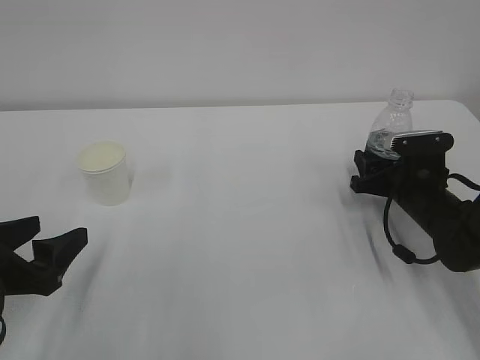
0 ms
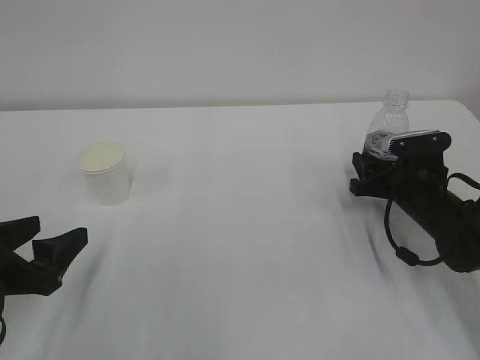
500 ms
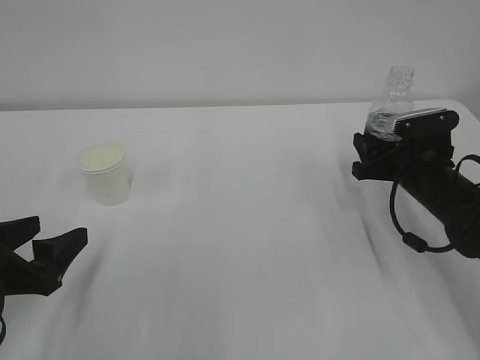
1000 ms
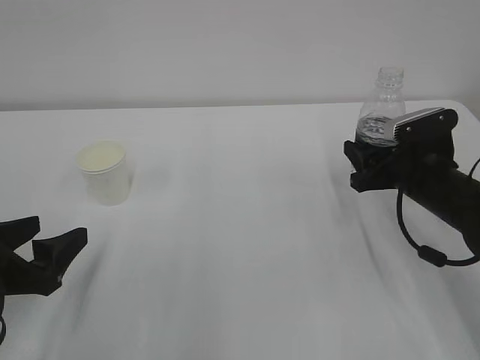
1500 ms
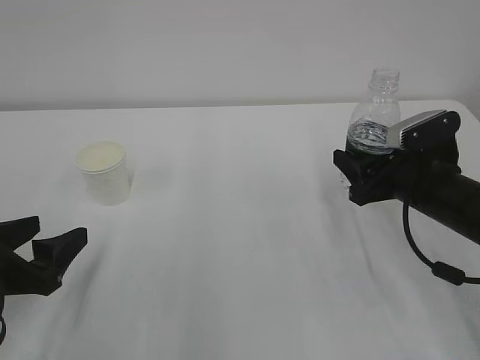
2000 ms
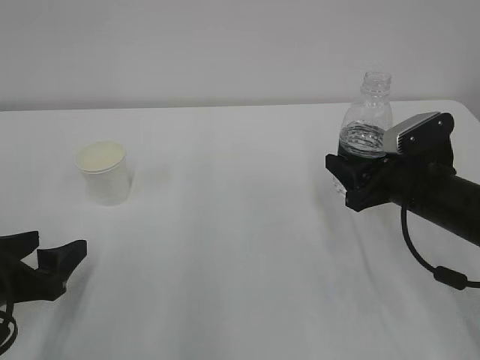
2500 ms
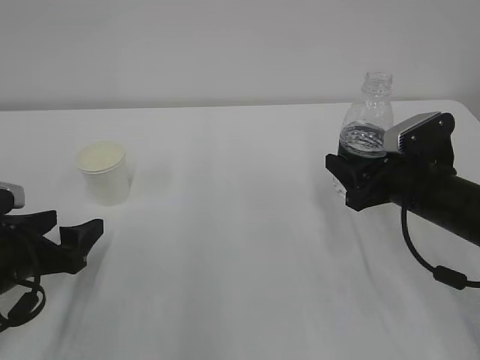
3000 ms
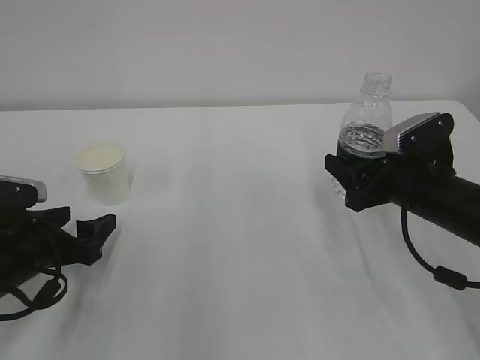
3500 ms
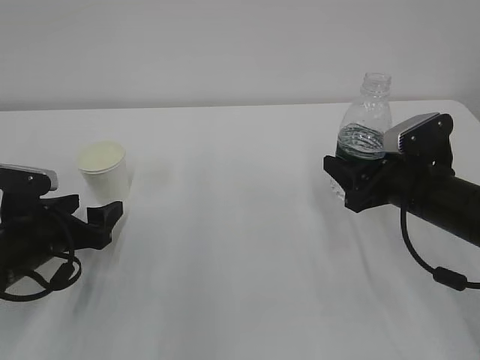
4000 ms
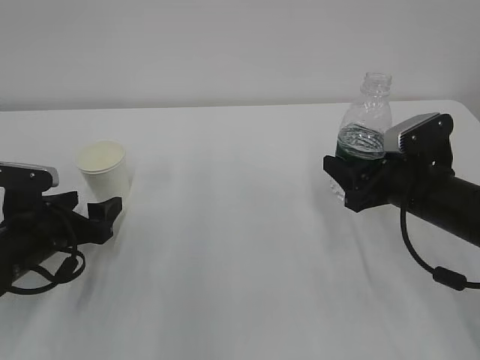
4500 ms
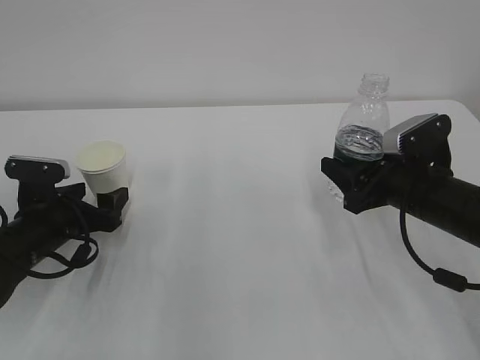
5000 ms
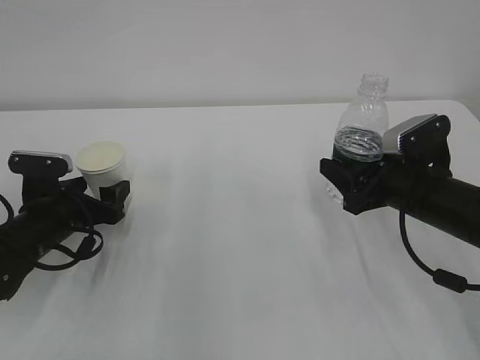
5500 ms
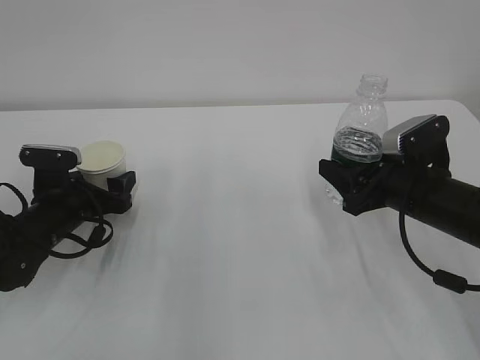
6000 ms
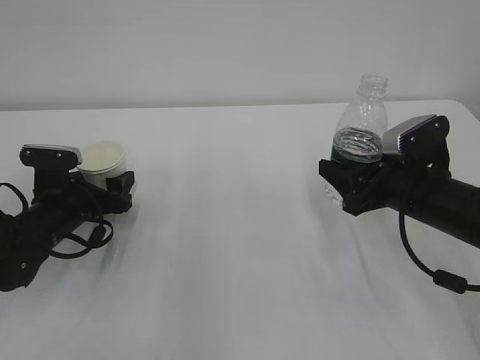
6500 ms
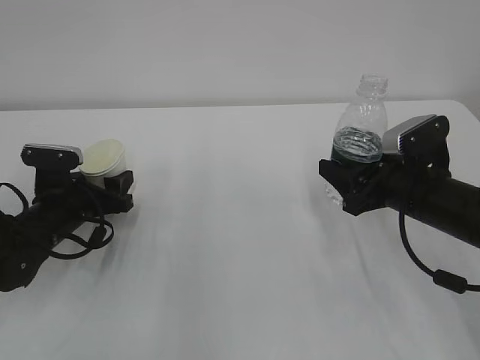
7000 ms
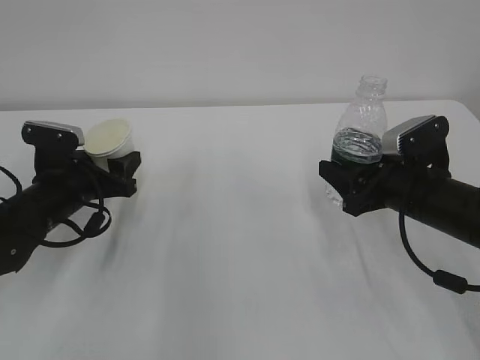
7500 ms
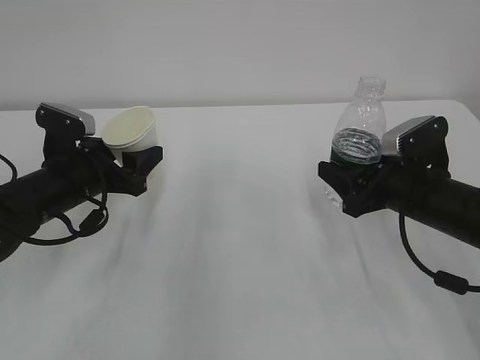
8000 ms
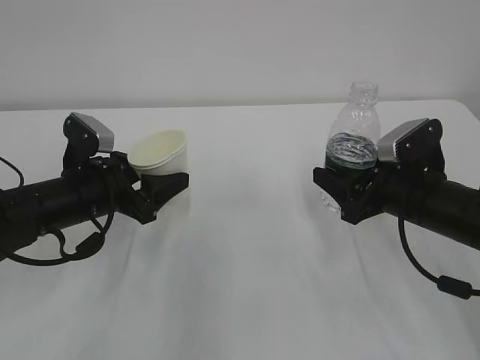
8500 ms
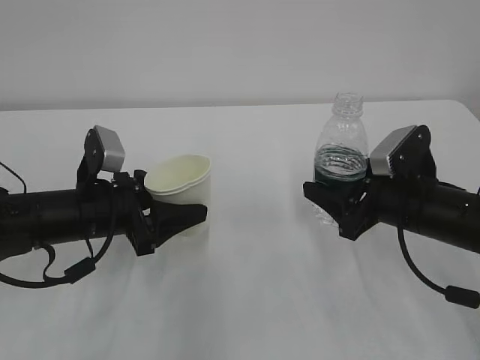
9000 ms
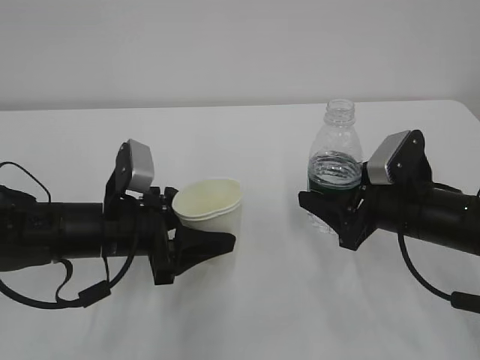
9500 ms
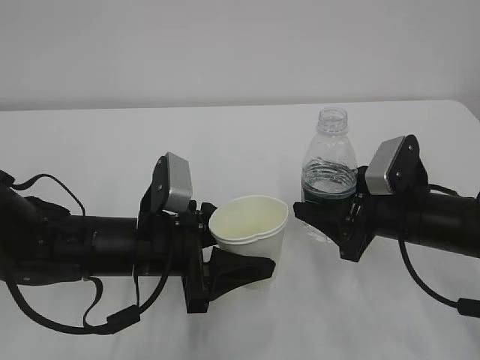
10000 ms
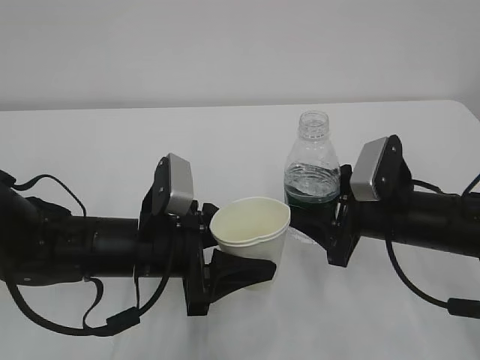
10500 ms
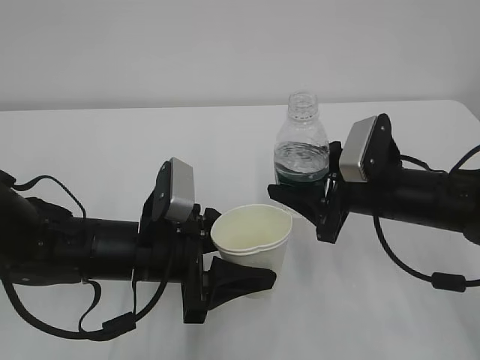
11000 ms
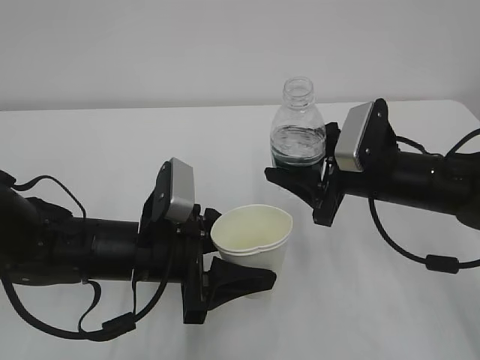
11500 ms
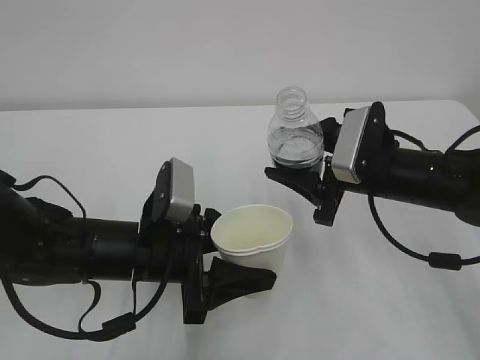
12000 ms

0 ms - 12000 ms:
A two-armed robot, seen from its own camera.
0 ms - 2000 ms: The right gripper shifts about 10 cm upward and backward.
2000 ms - 4000 ms: The left gripper shifts some 10 cm forward.
4000 ms - 6000 ms: The left gripper is displaced forward by approximately 5 cm.
6000 ms - 8000 ms: The left gripper goes roughly 5 cm upward, and closes up.
8000 ms - 10000 ms: The left gripper shifts roughly 15 cm to the right and backward.
10000 ms - 12000 ms: The right gripper changes place by approximately 5 cm.

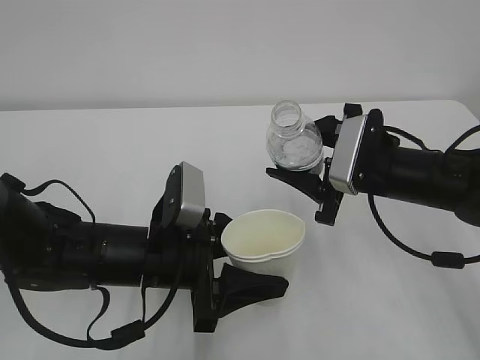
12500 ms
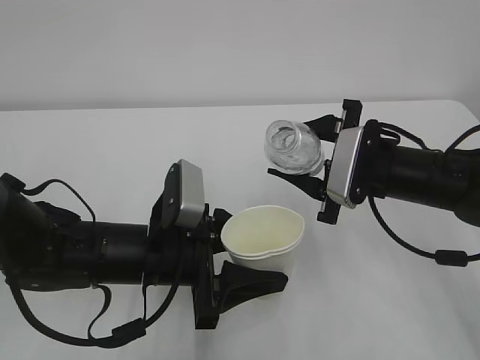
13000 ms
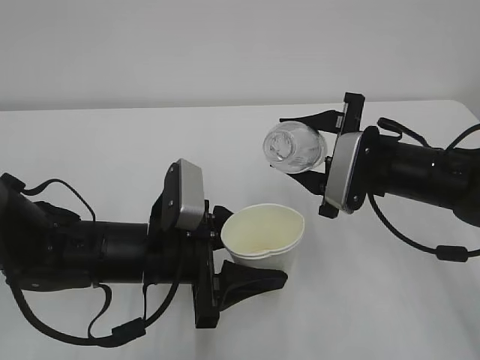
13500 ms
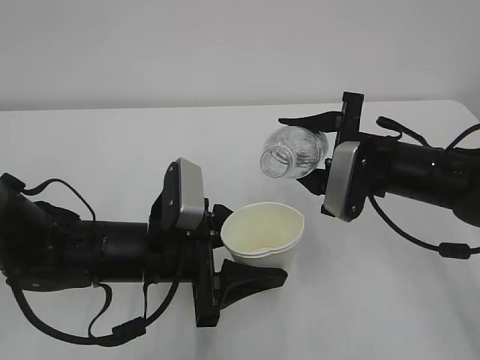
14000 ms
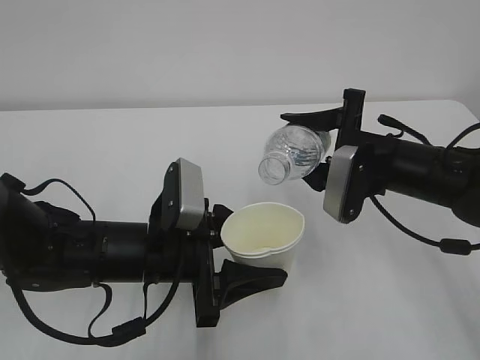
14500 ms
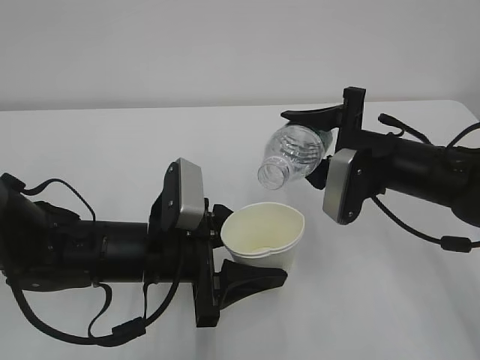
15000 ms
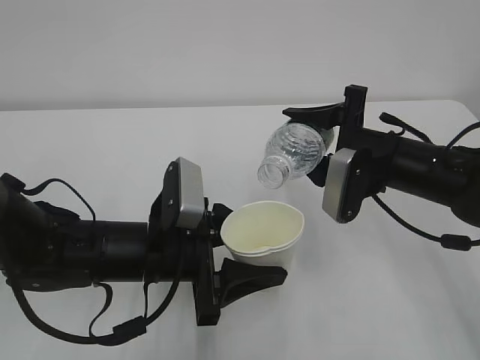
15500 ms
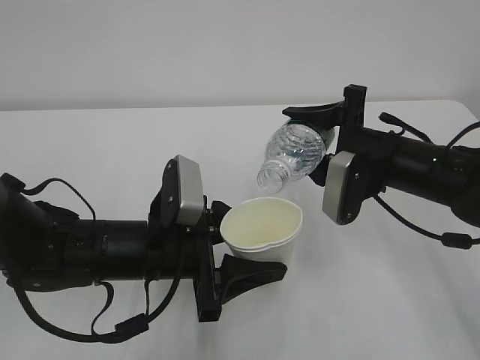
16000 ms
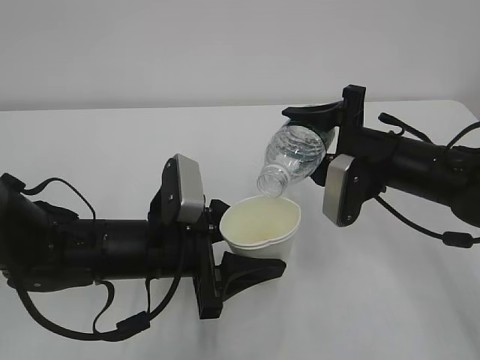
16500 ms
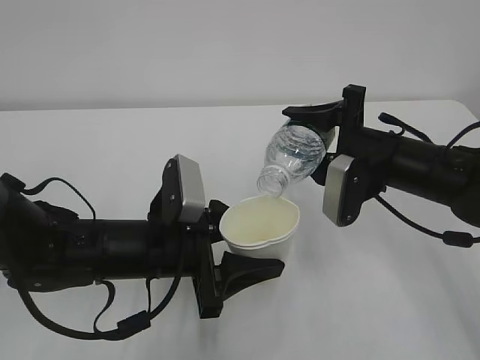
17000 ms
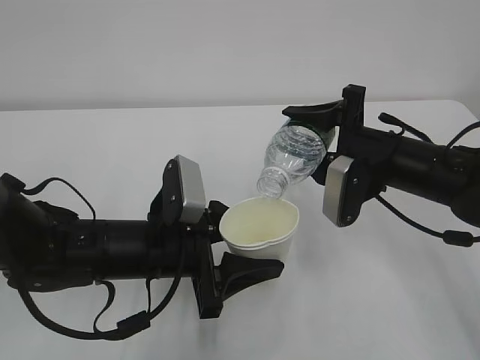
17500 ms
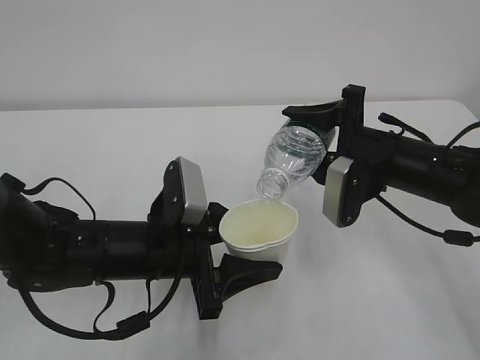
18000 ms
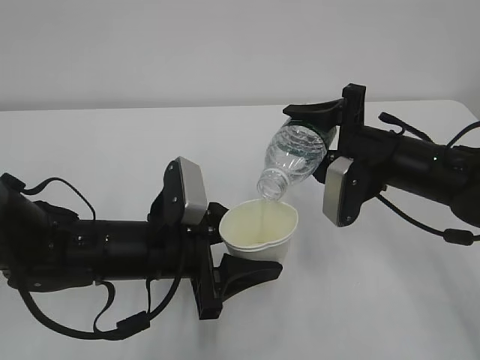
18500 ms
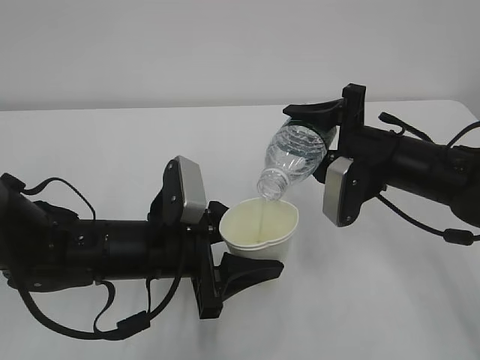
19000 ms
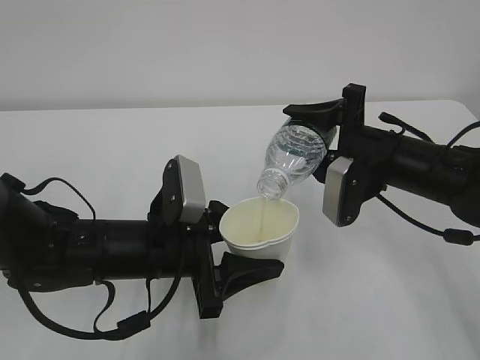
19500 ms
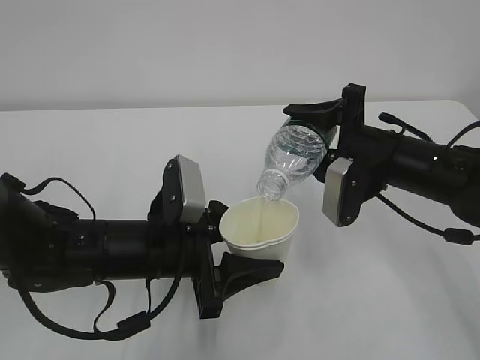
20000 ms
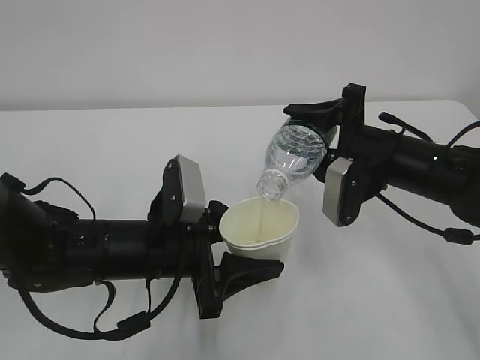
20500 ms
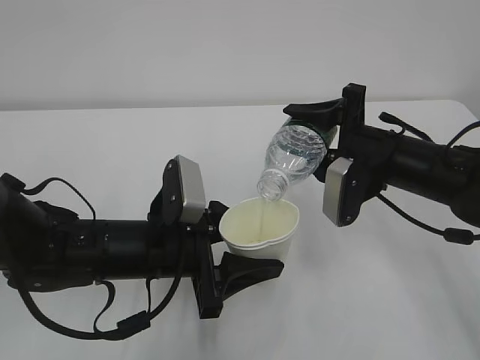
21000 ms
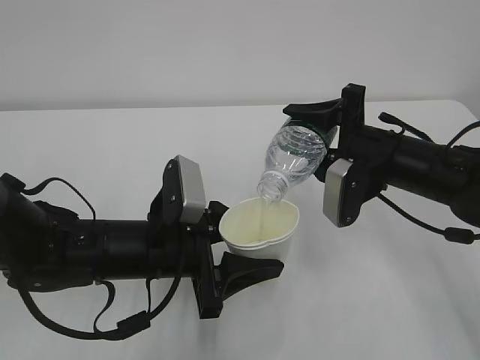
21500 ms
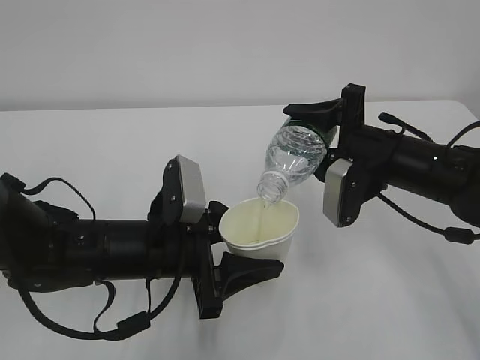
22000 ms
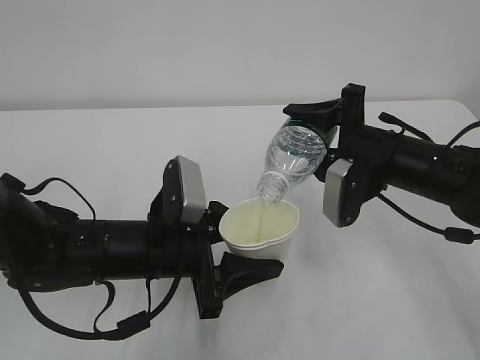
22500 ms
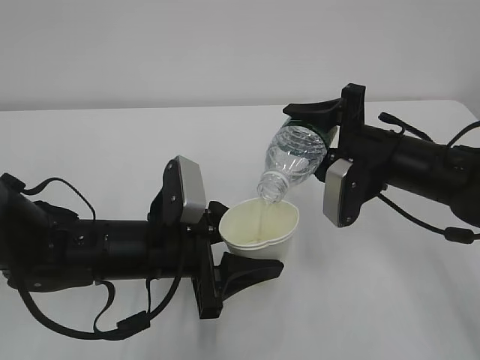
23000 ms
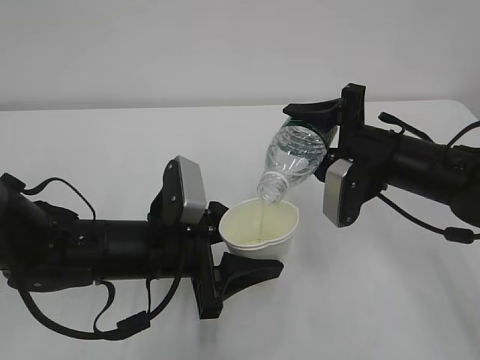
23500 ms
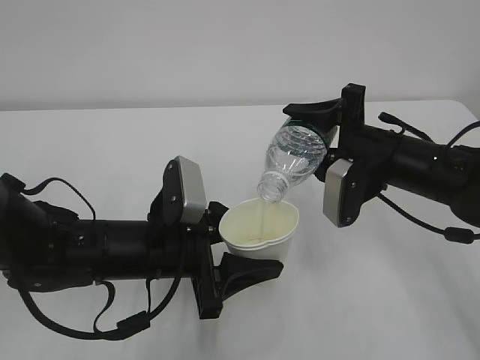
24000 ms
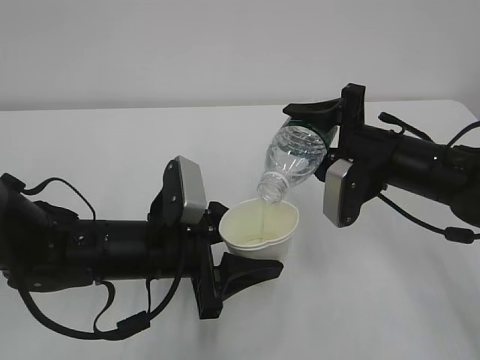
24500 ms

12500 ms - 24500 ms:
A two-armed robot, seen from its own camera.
14500 ms - 16500 ms: The grippers stay close to where they were, moving slightly.
16500 ms - 18500 ms: Both grippers stay put.
18500 ms - 24500 ms: Both grippers stay about where they are.

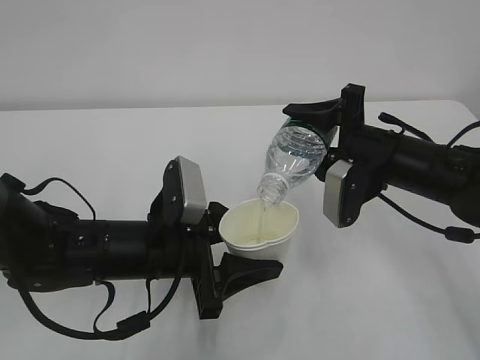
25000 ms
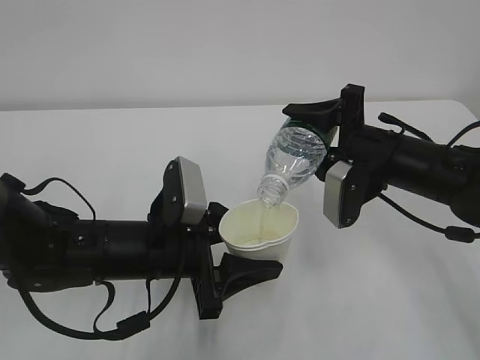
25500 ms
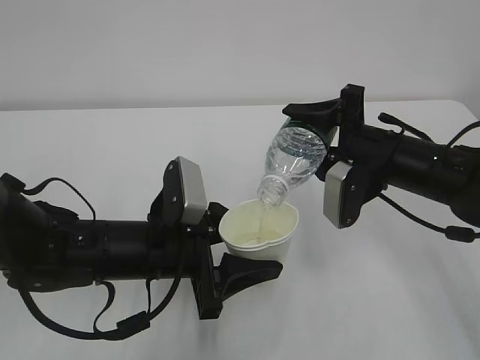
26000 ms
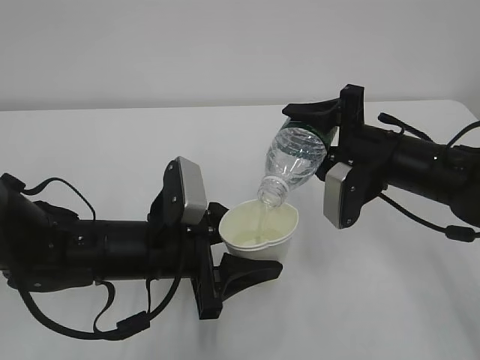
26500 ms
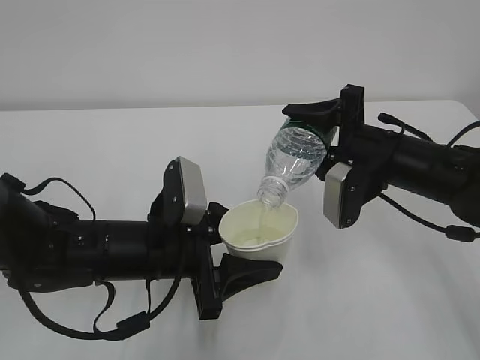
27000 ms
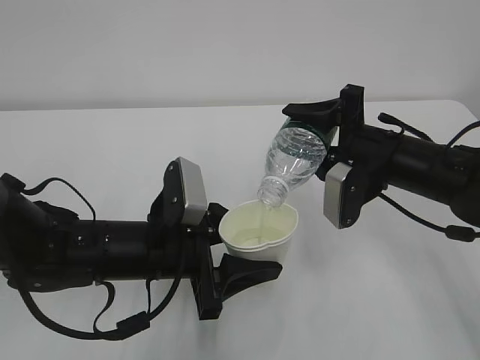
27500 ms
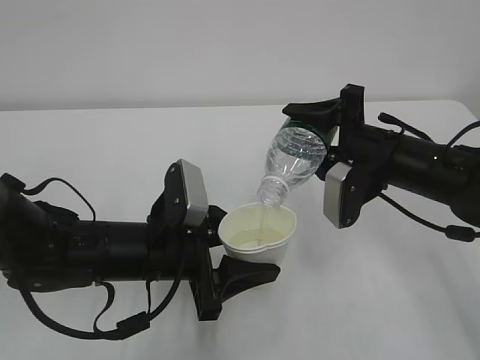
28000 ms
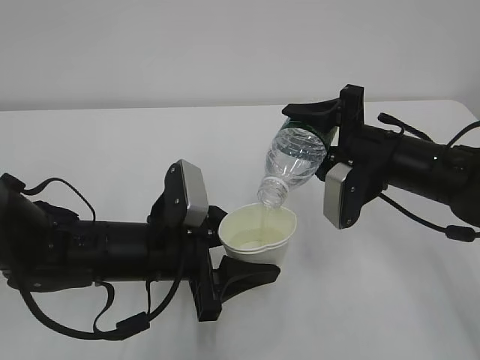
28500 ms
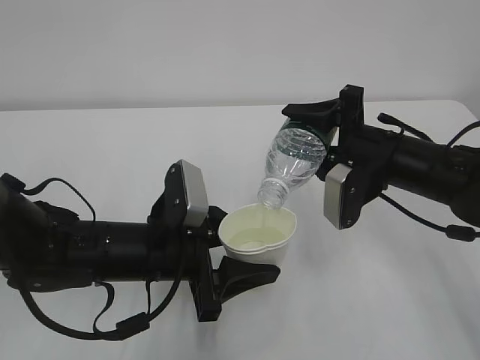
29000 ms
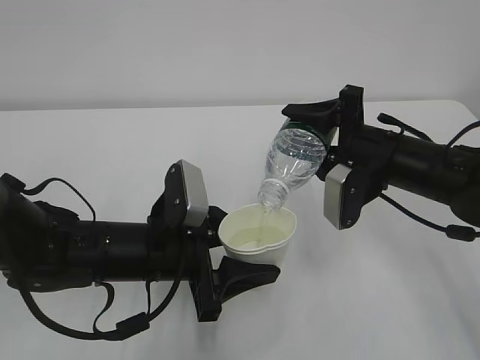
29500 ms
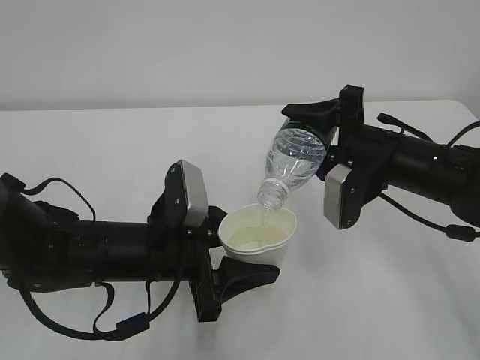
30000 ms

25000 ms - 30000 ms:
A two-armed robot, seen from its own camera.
25000 ms - 30000 ms: Both grippers stay put.
